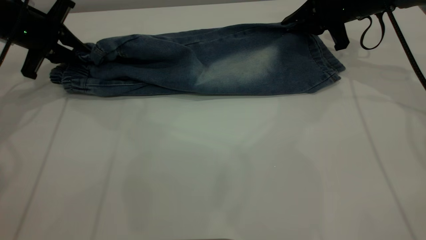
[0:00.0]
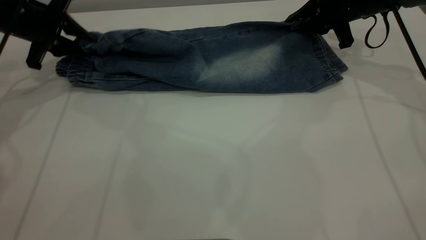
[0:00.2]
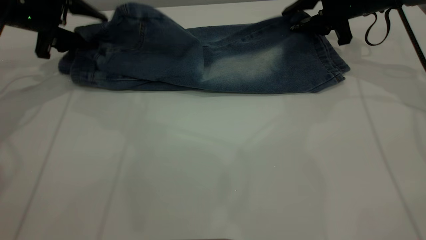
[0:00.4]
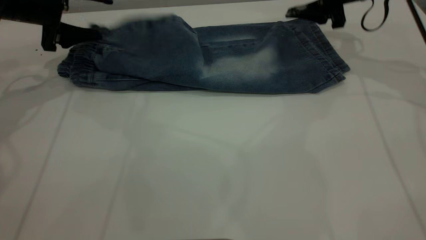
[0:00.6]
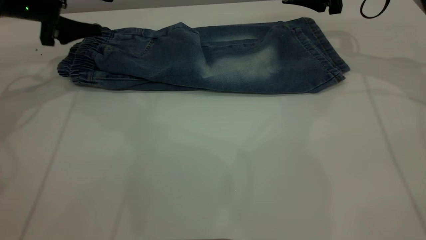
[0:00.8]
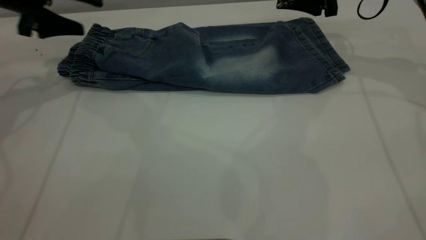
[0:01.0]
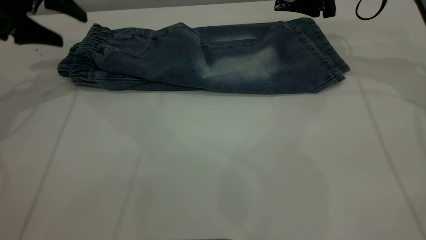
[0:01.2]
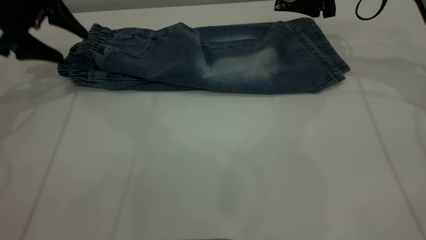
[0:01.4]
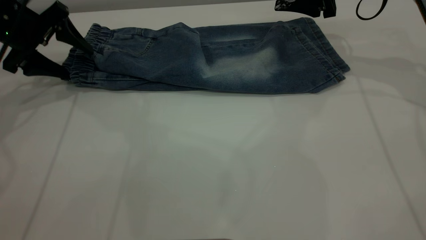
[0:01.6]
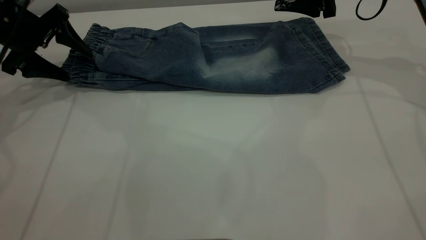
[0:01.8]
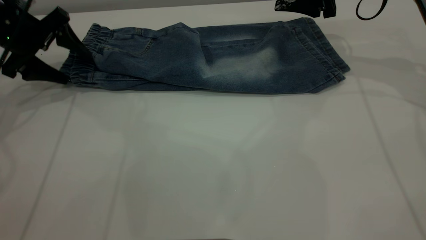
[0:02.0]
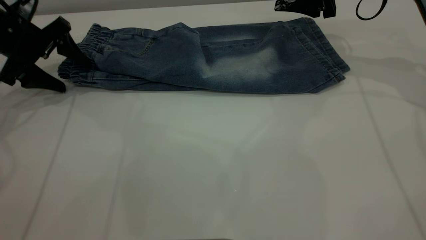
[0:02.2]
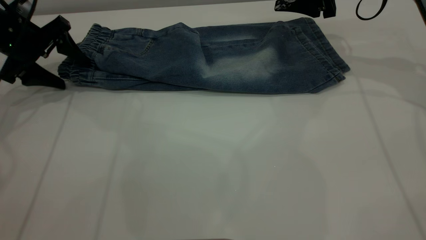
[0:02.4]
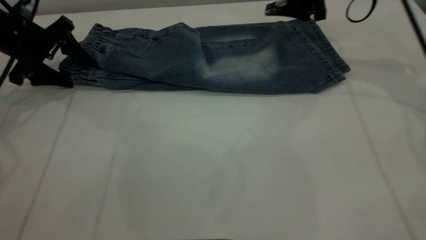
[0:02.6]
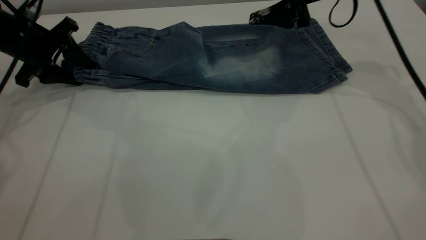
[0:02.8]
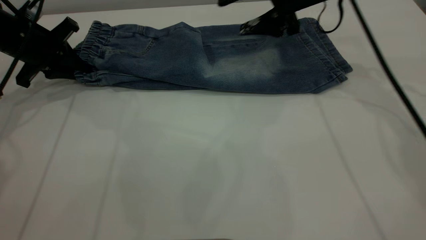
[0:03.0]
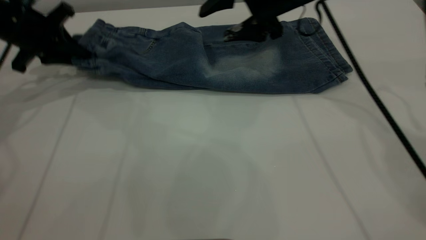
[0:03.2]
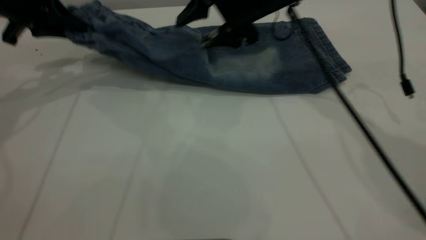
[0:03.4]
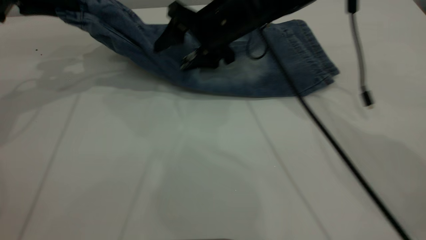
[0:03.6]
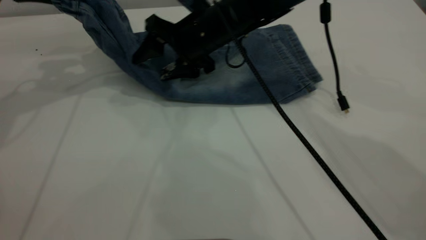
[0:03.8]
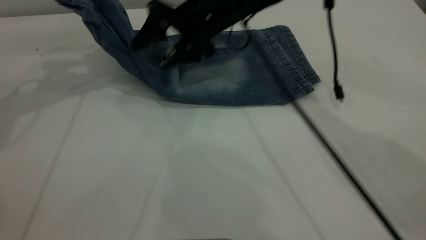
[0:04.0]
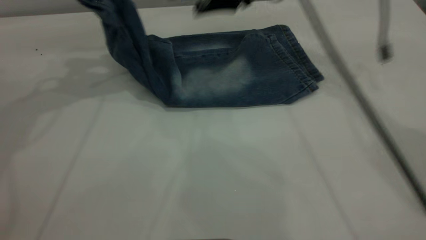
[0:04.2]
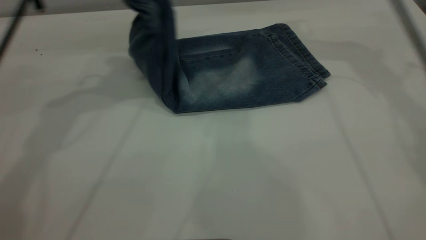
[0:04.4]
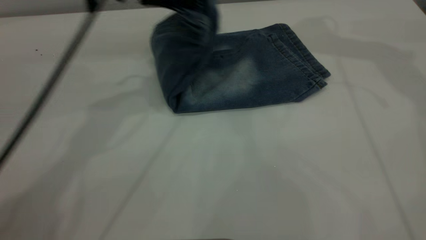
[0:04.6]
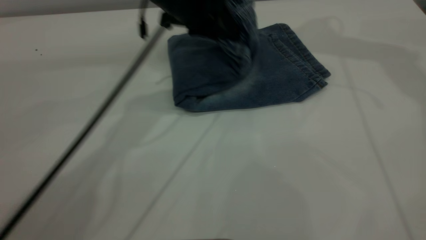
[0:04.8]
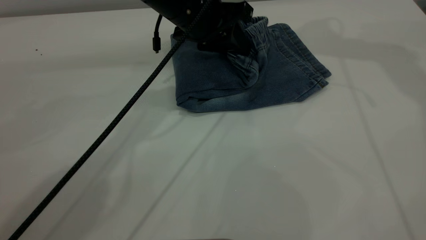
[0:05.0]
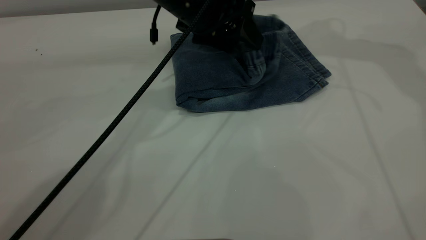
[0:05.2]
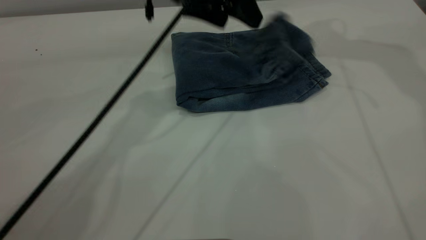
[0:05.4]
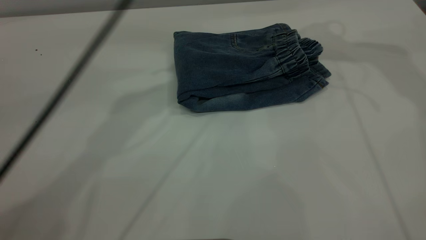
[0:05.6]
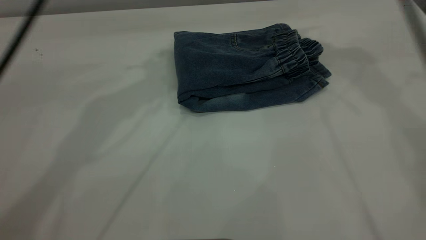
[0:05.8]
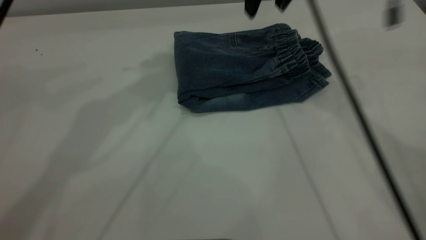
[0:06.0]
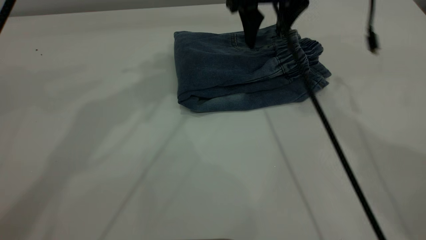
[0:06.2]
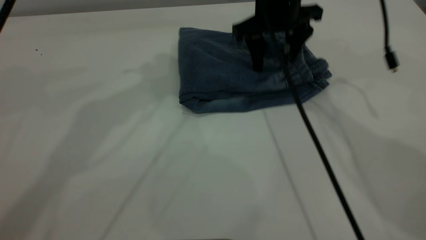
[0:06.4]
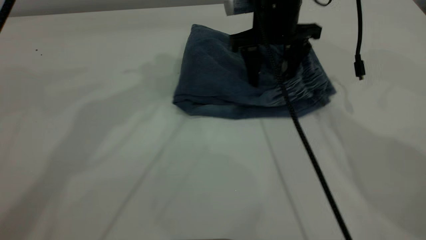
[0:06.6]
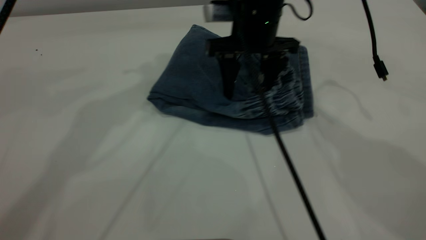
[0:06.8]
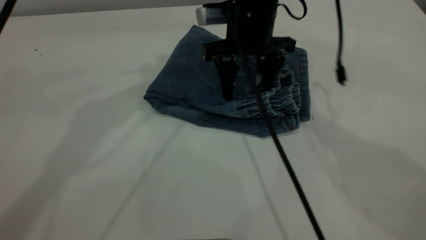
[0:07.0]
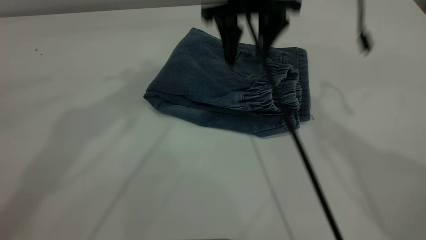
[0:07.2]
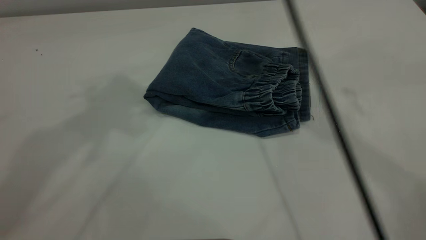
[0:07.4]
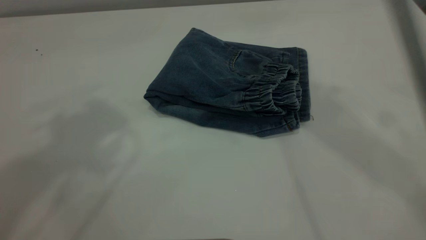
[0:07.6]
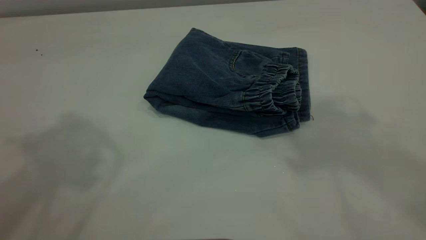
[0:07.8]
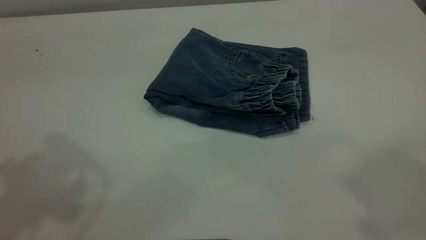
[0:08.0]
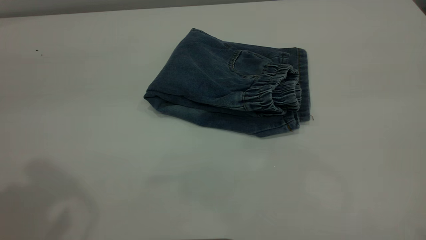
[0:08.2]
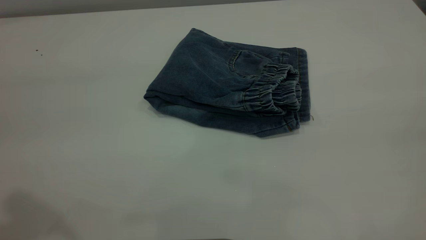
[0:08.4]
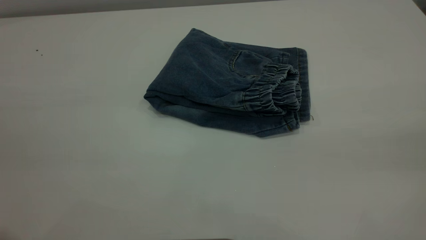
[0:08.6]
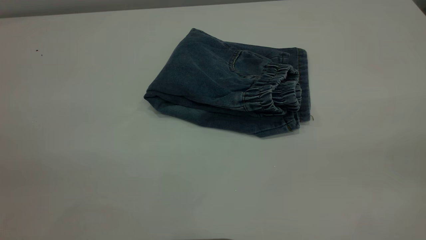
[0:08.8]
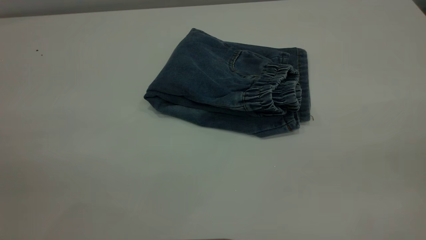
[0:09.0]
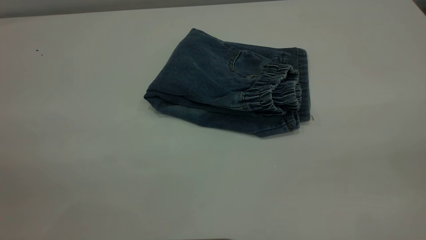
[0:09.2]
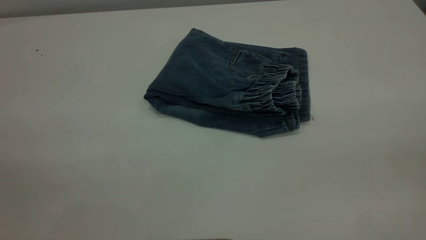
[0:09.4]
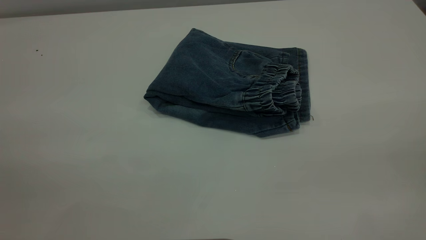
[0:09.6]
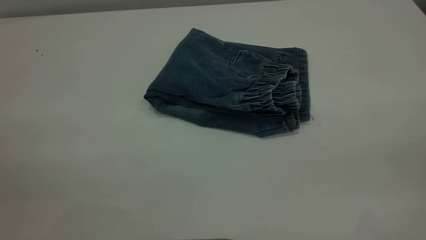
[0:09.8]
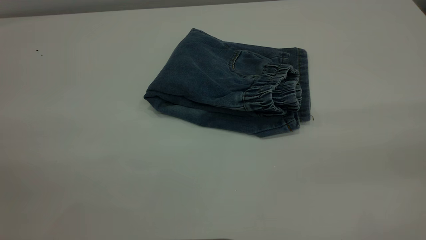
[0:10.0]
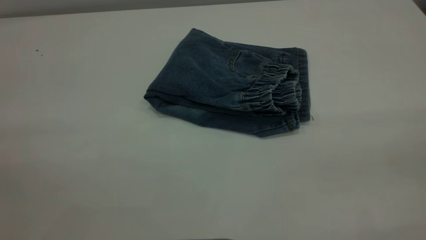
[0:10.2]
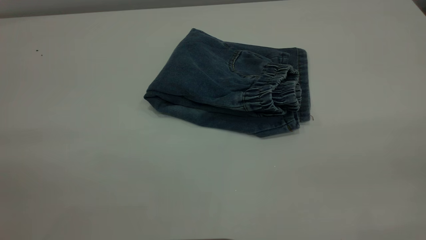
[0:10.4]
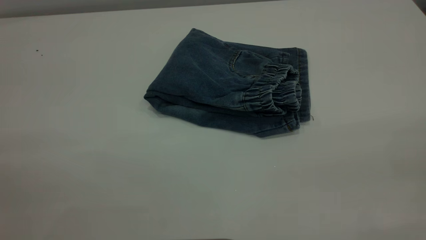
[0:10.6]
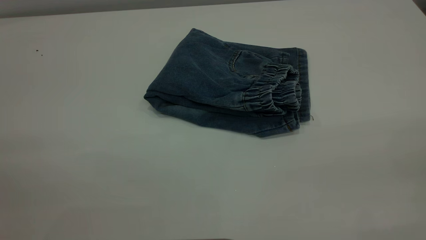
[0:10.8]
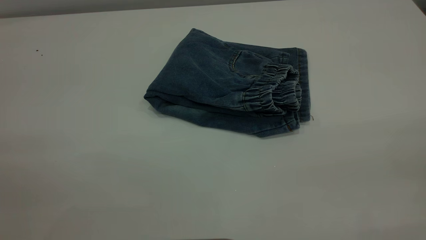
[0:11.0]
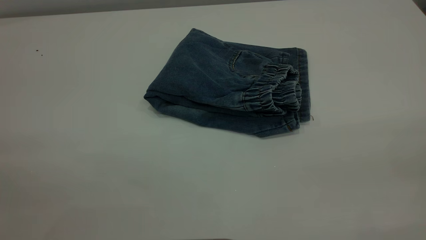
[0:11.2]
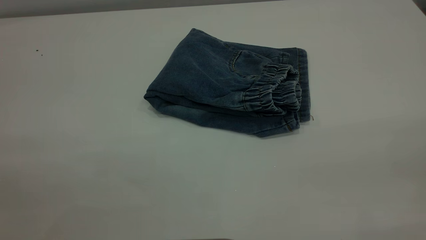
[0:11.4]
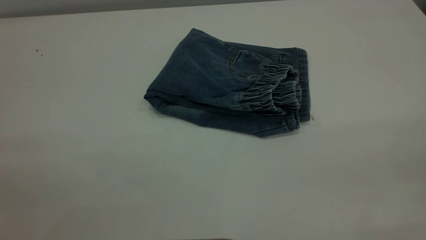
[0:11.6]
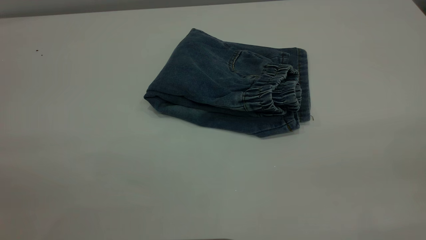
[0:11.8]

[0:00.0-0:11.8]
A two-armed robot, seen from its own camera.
Step, 0:01.2 to 0:05.8: Fold the pants from left to right.
0:00.0 to 0:01.4: The left gripper opens; the right gripper opens up.
0:01.4 to 0:03.0: The left gripper closes its fingers. The right gripper goes some 10 cm to the left.
0:03.0 to 0:04.4: The right gripper moves upward, approximately 15 cm, and moves about 15 cm to the left and comes back. Meanwhile the left gripper travels to the right and upward by some 20 cm.
0:04.4 to 0:06.0: The left gripper moves upward and to the right, approximately 10 cm, and opens its fingers, while the right gripper moves to the left and downward, about 10 cm.
0:06.0 to 0:07.4: The right gripper heads upward and backward, covering approximately 15 cm; the left gripper shifts some 15 cm upward, backward and to the left.
0:07.4 to 0:08.8: The right gripper travels backward and to the right by approximately 40 cm.
0:10.4 to 0:11.8: Both grippers stay put.
